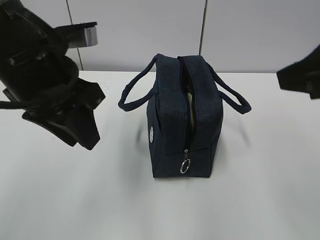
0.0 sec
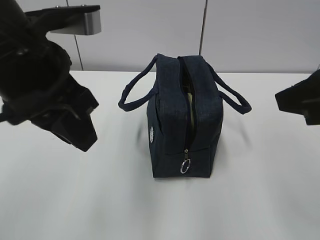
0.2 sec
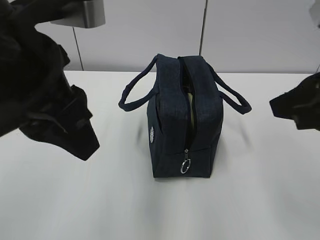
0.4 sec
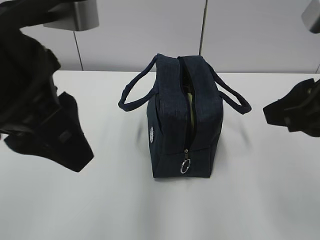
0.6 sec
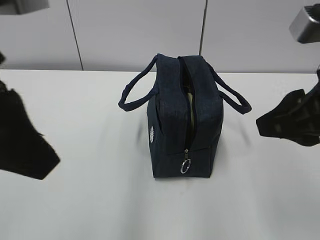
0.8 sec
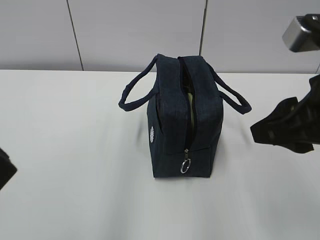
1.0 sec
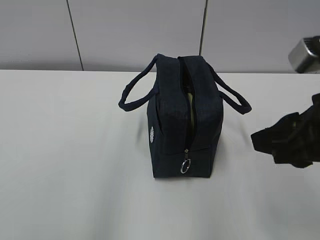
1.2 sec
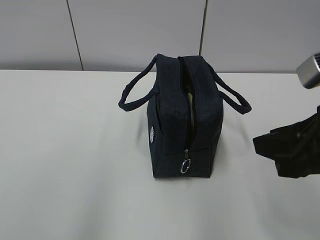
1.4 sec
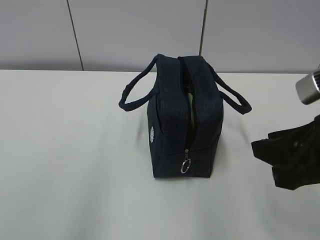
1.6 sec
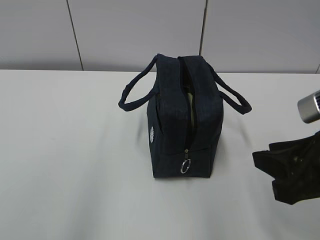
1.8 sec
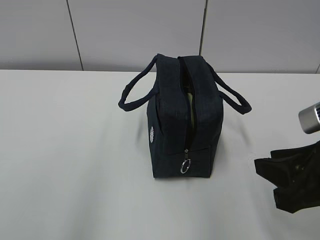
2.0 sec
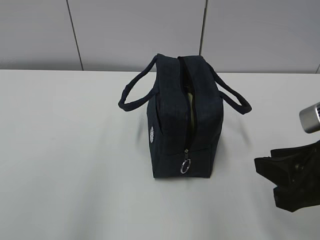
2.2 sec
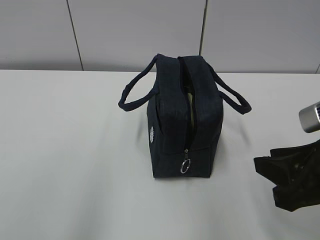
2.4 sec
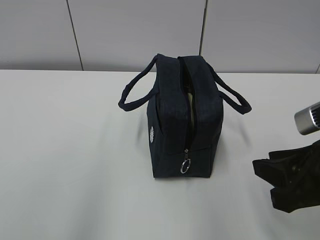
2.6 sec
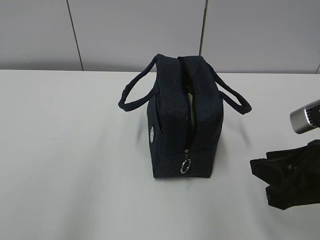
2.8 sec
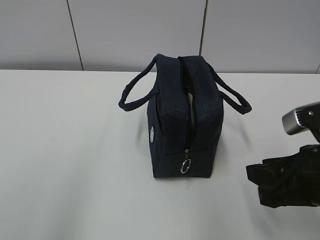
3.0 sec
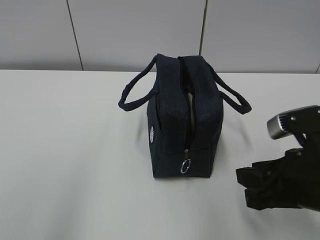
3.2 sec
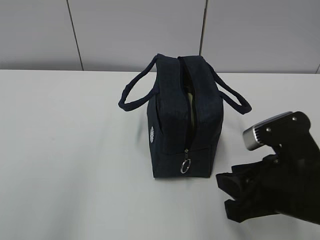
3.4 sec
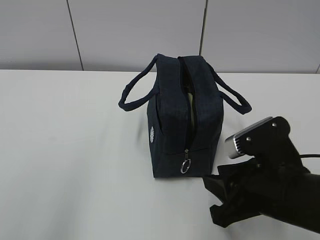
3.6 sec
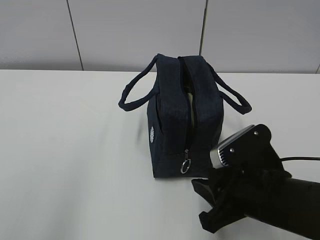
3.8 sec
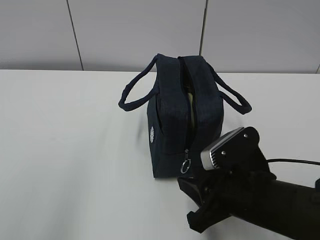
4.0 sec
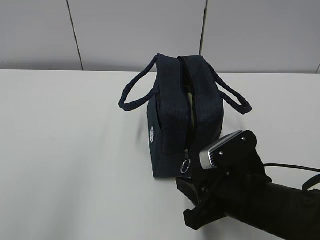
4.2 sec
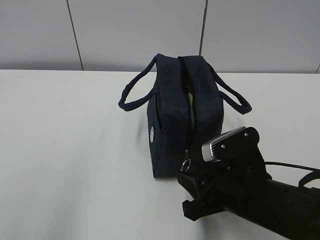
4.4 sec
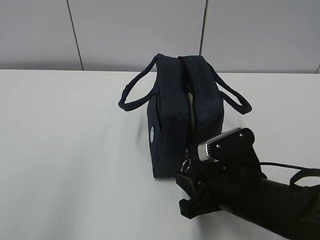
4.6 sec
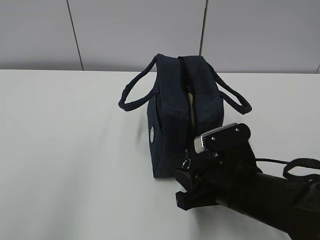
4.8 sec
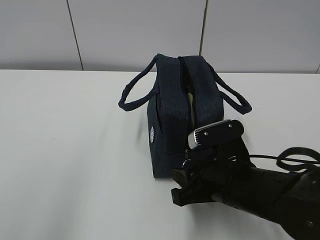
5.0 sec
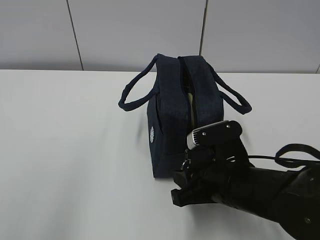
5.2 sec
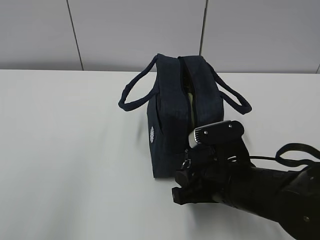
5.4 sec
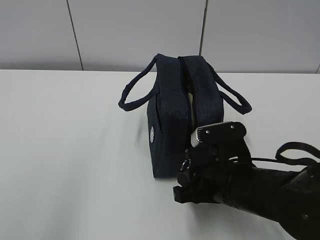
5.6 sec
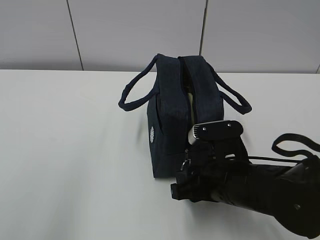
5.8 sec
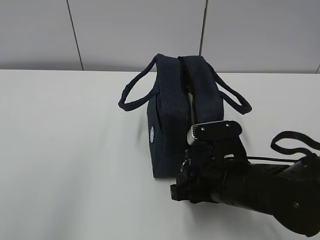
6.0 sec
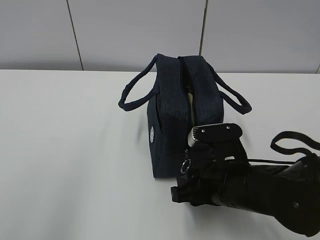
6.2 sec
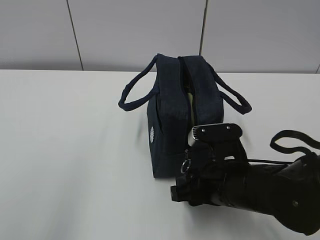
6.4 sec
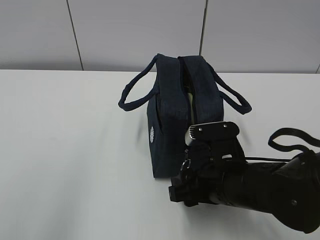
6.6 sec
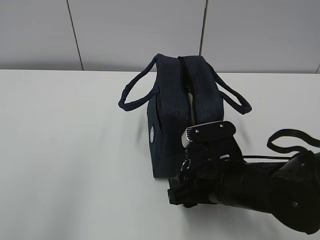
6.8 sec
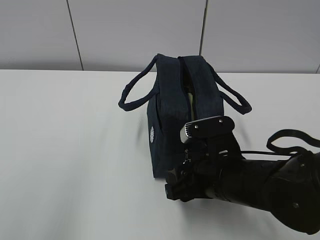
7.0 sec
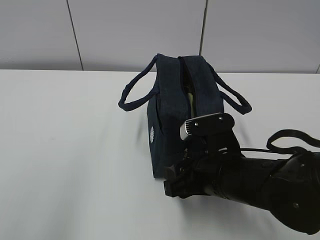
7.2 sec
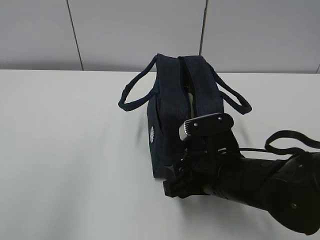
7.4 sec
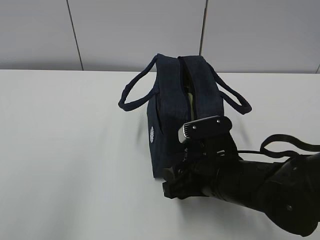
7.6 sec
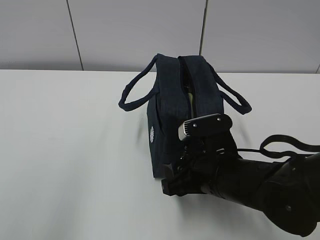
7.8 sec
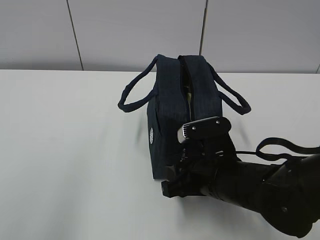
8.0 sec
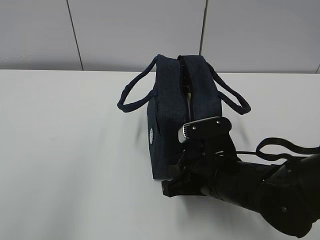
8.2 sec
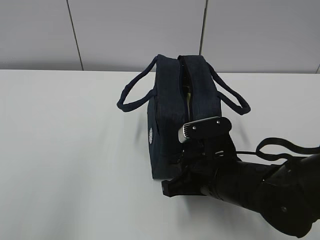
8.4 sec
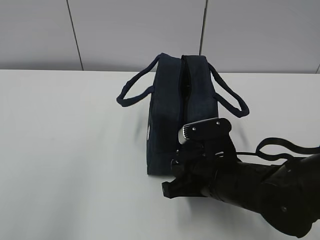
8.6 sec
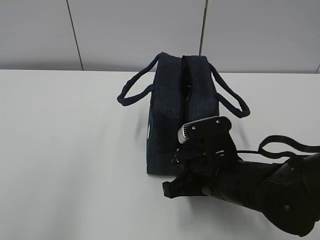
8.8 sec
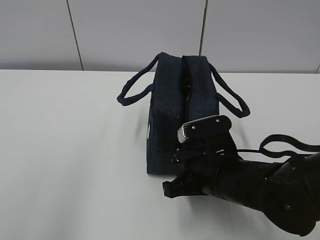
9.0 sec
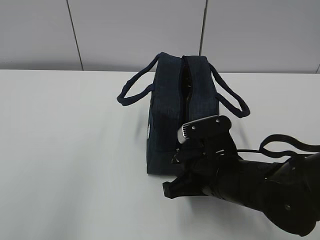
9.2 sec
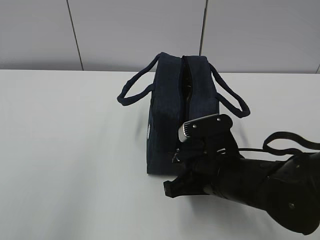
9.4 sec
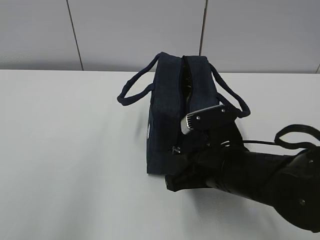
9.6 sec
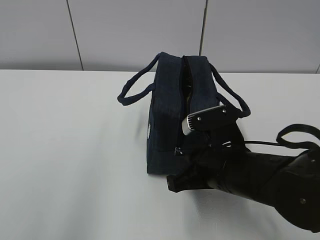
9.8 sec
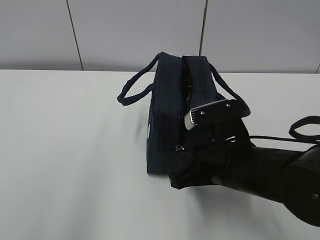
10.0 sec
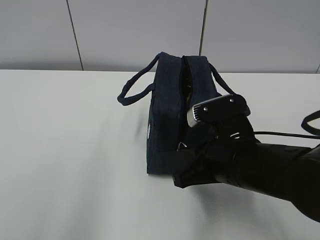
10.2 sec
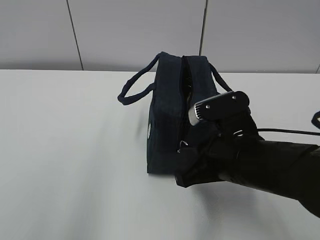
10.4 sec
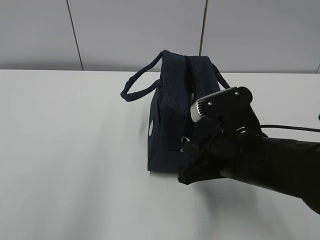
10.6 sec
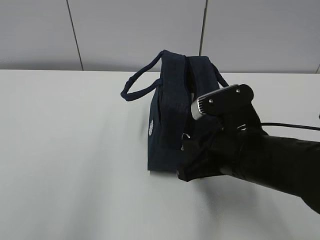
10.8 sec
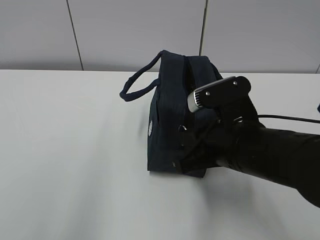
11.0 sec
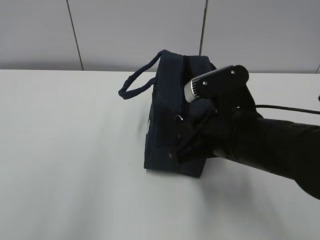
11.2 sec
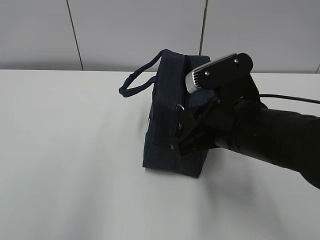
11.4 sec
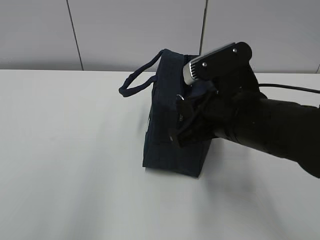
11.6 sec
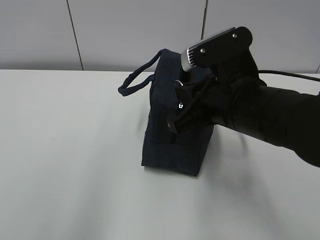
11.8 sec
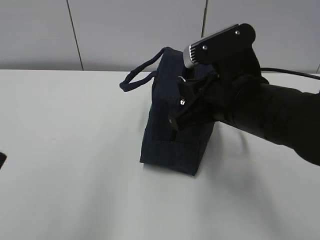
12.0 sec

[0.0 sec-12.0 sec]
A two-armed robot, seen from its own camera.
Step, 0.0 sec to 5.0 sec: Grab the lunch bag with your left hand.
0.0 sec to 1.6 sec: The left gripper heads backward and to the left, covering some 20 cm. The right gripper moves downward, approximately 10 cm.
1.6 sec to 3.0 sec: The right gripper heads downward, covering about 5 cm.
3.0 sec to 4.4 sec: The right gripper moves downward and to the left, approximately 10 cm.
4.4 sec to 6.0 sec: The grippers move only a little.
6.0 sec to 7.6 sec: The grippers stay close to where they were, moving slightly.
7.6 sec to 9.0 sec: The right gripper closes its fingers.
9.0 sec to 10.4 sec: The right gripper shifts approximately 5 cm upward.
10.4 sec to 12.0 sec: The right gripper is displaced upward by some 5 cm.

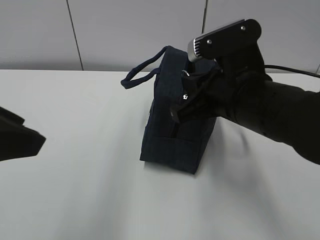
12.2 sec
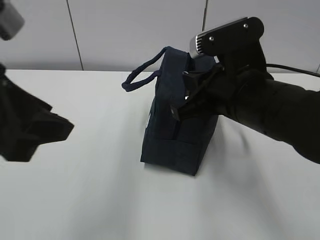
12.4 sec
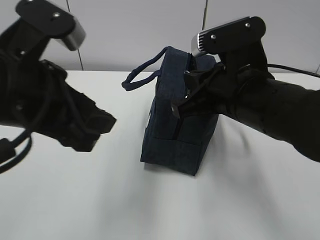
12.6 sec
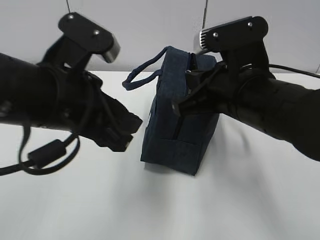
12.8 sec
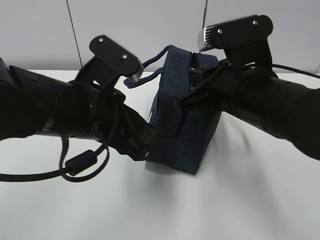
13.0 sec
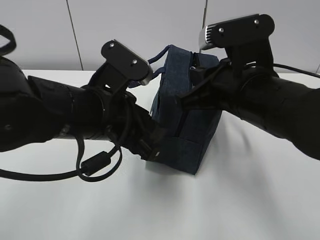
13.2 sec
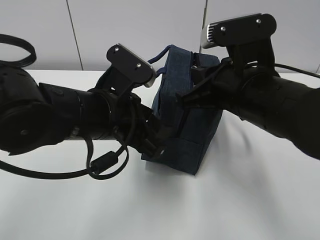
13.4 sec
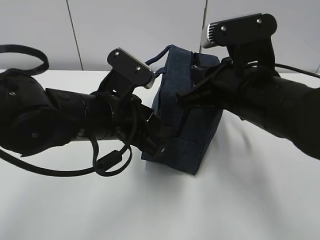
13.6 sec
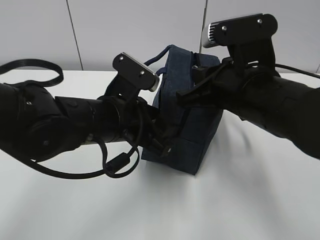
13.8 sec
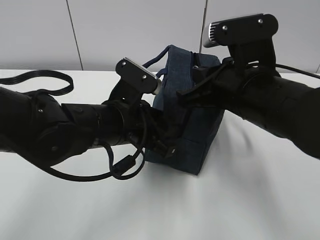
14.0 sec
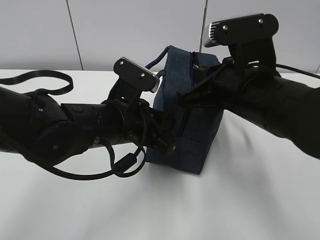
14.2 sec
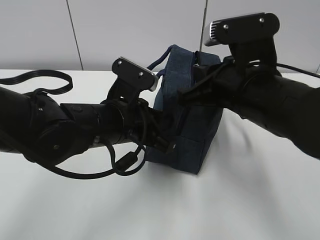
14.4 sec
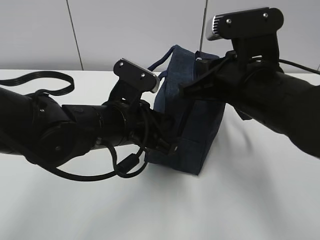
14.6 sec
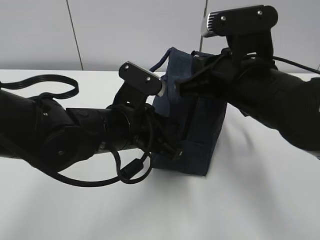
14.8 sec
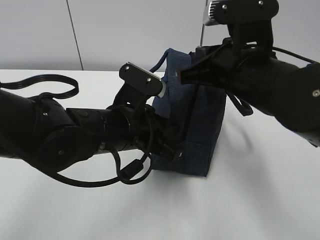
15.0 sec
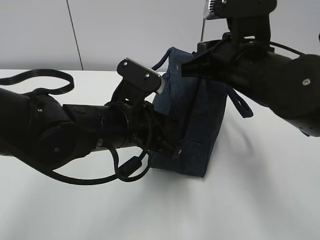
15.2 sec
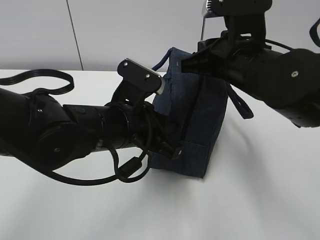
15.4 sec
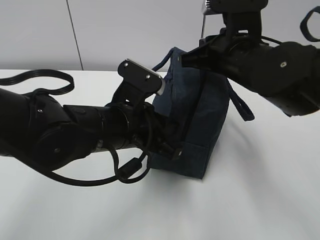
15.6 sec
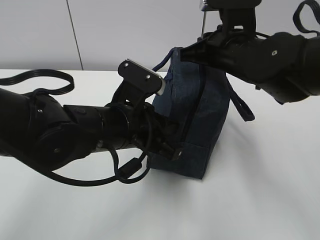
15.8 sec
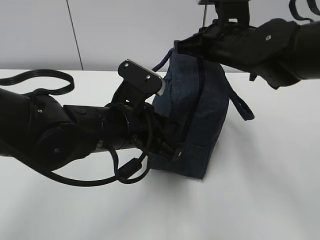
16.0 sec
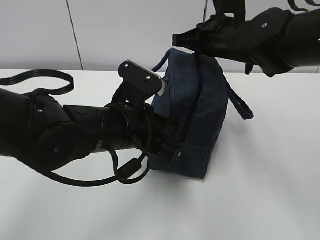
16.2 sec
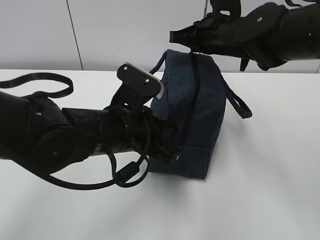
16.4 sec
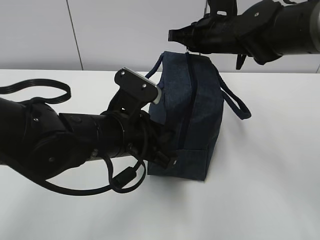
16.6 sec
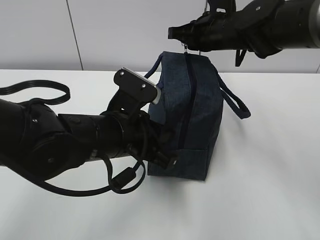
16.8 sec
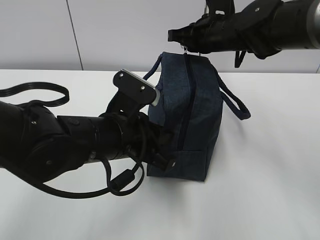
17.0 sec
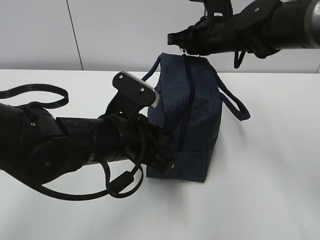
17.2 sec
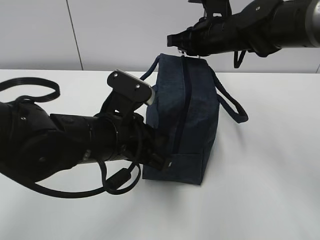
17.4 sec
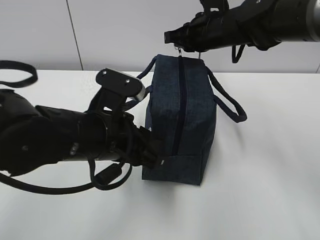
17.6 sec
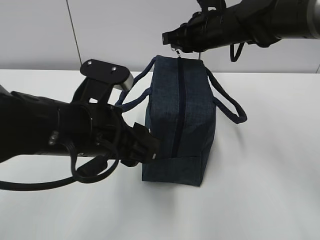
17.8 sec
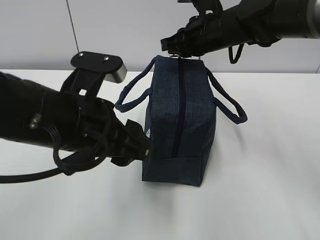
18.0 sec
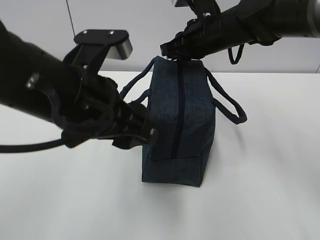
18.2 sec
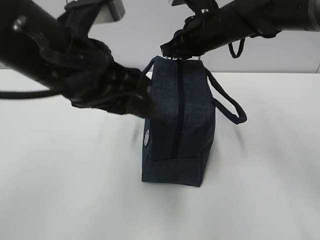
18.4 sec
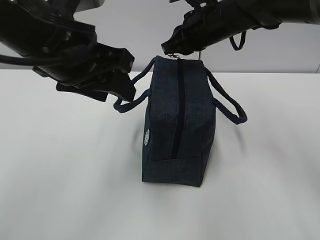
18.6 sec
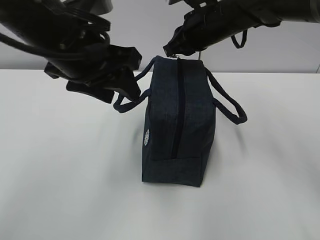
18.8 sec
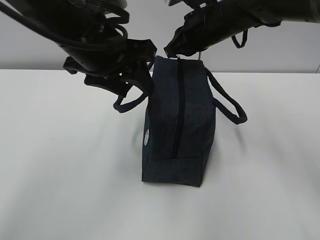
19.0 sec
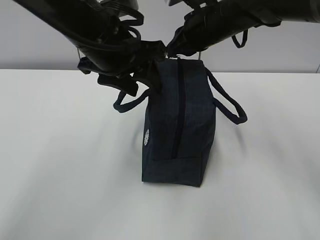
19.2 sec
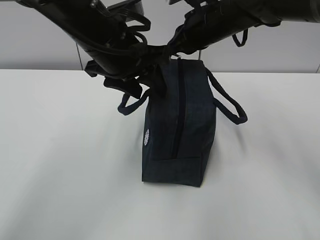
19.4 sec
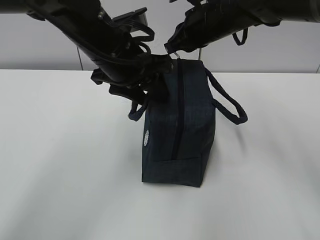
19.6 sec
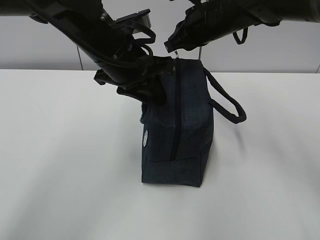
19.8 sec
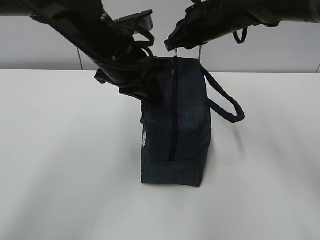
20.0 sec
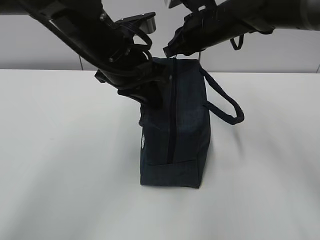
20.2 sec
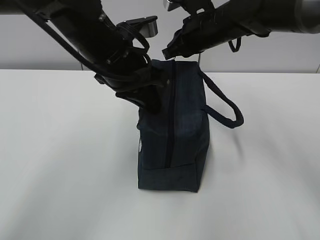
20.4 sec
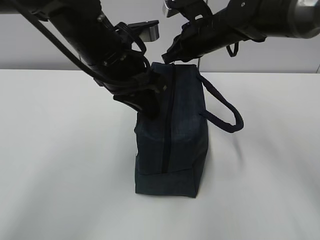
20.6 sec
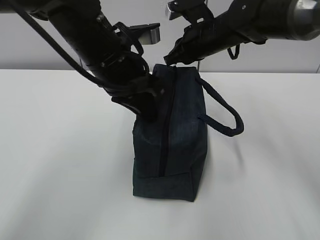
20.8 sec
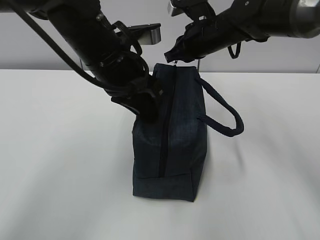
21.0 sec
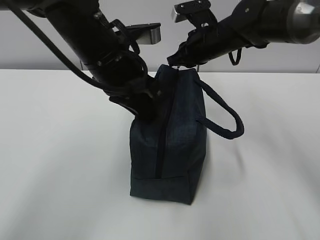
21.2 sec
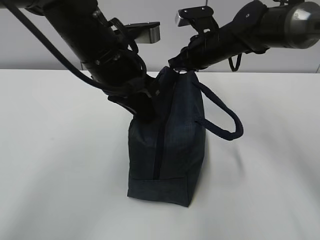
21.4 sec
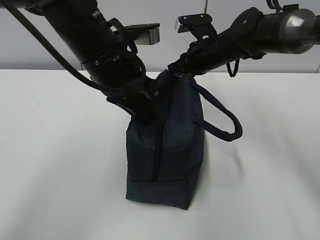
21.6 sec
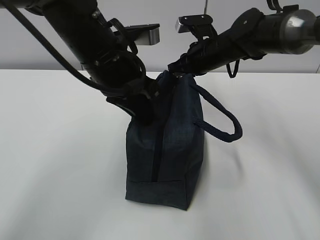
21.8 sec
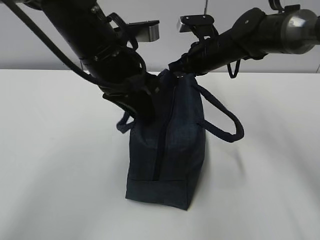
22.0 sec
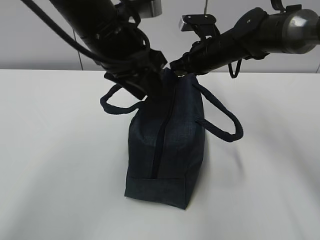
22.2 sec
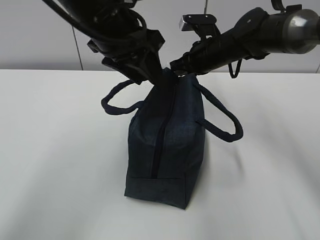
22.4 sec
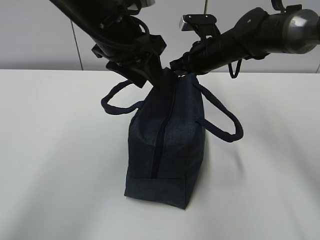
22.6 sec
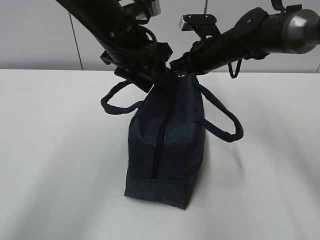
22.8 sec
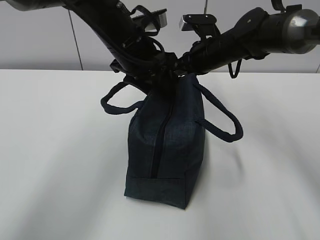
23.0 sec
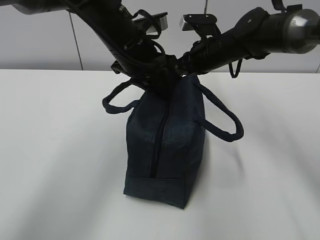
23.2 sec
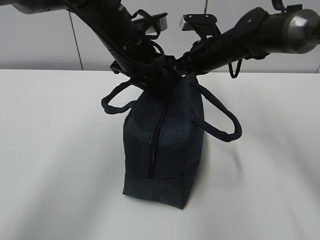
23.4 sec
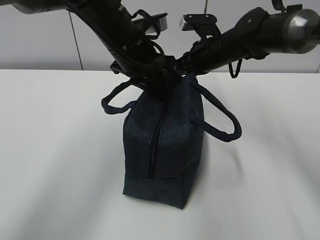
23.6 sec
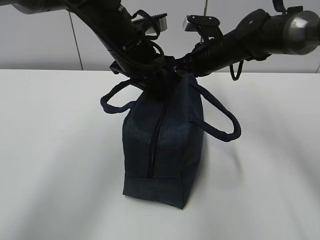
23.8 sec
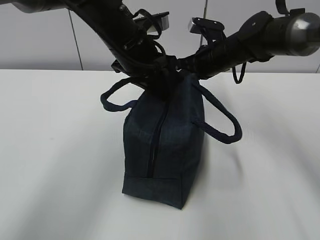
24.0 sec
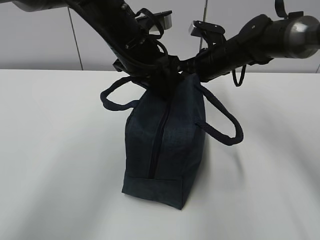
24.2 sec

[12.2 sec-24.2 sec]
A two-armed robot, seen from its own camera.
Step, 12.2 sec to 12.8 sec: Grab the lunch bag with your left hand.
12.2 sec to 13.8 sec: The left gripper is displaced downward, forward and to the right by approximately 25 cm.
13.8 sec to 15.2 sec: The left gripper closes up.
15.2 sec to 16.6 sec: The right gripper heads forward, covering some 15 cm.
16.6 sec to 18.2 sec: The left gripper goes about 10 cm upward, and opens its fingers.
18.2 sec to 19.8 sec: The left gripper heads forward, covering about 15 cm, and closes up.
19.8 sec to 21.2 sec: The right gripper shifts by some 5 cm; the left gripper closes up.
21.2 sec to 22.6 sec: The left gripper changes place by roughly 5 cm, and opens up.
22.6 sec to 24.2 sec: The left gripper shifts by approximately 5 cm, and closes.
